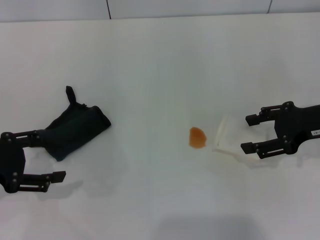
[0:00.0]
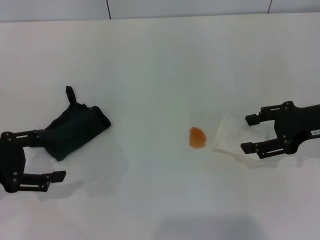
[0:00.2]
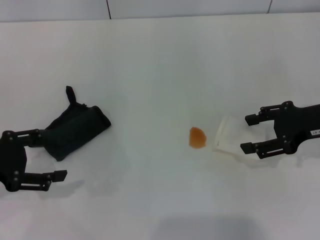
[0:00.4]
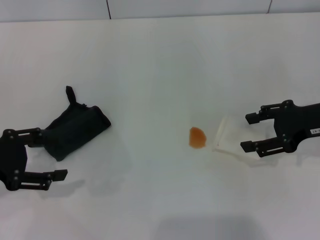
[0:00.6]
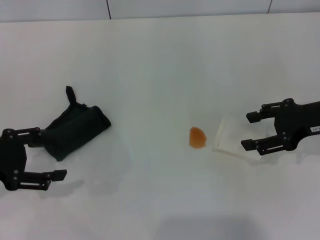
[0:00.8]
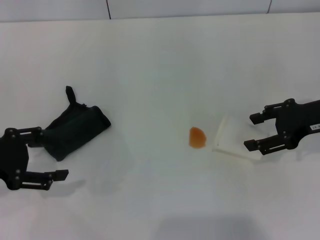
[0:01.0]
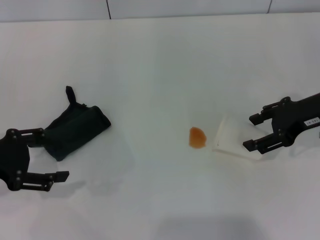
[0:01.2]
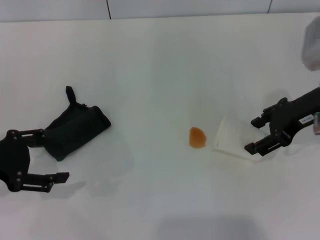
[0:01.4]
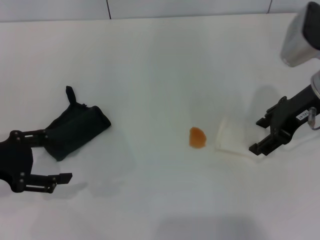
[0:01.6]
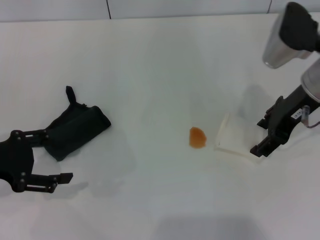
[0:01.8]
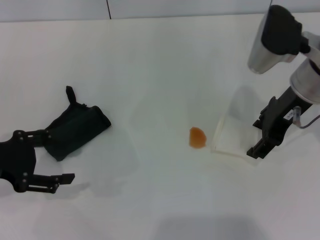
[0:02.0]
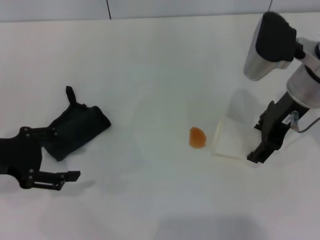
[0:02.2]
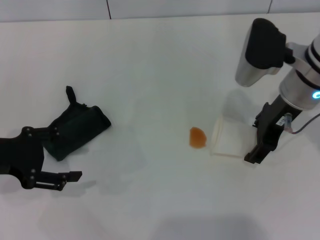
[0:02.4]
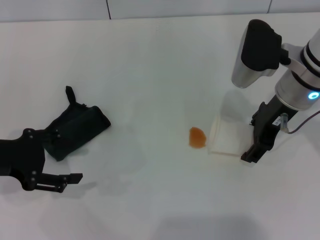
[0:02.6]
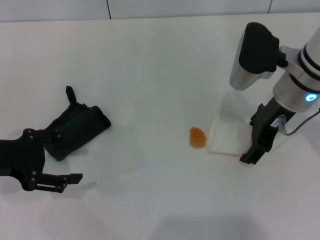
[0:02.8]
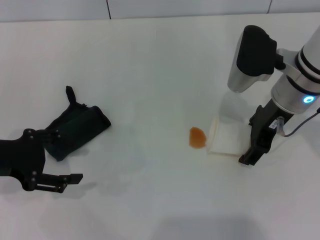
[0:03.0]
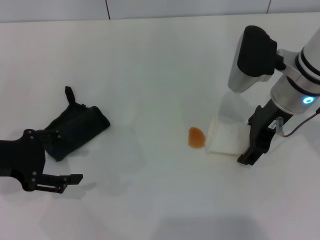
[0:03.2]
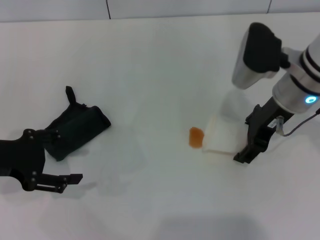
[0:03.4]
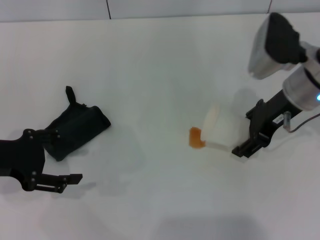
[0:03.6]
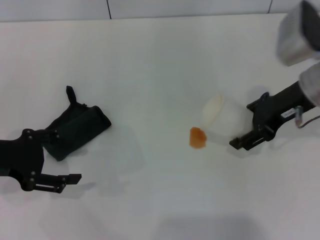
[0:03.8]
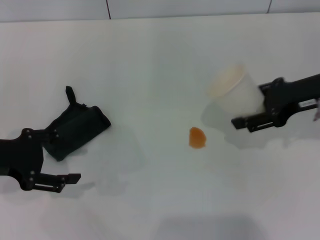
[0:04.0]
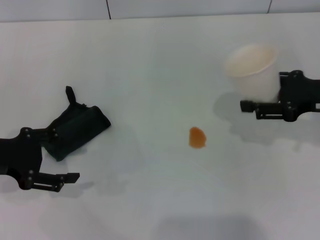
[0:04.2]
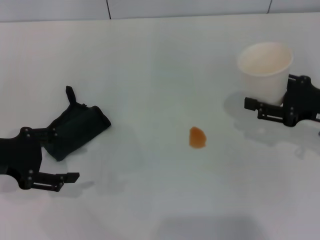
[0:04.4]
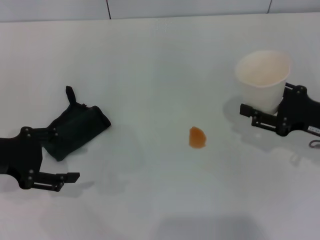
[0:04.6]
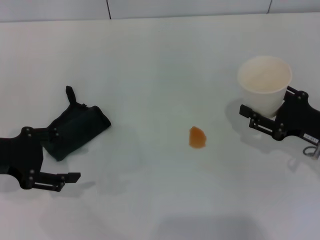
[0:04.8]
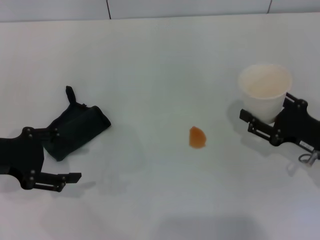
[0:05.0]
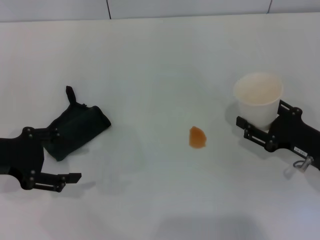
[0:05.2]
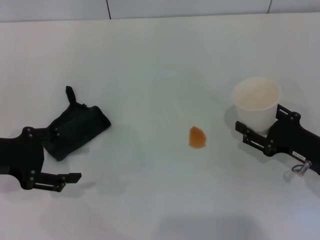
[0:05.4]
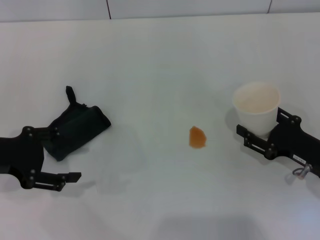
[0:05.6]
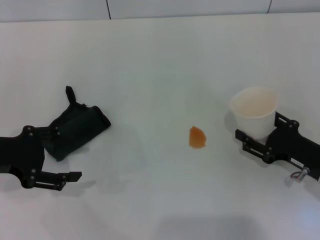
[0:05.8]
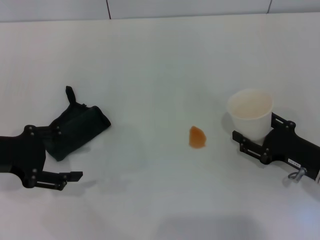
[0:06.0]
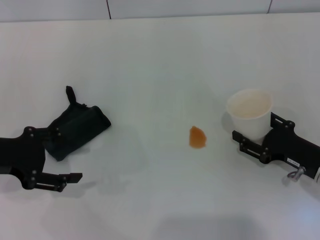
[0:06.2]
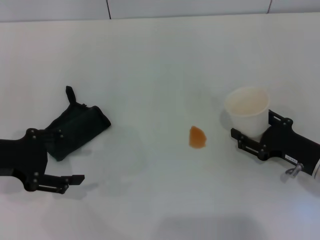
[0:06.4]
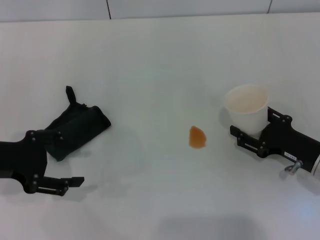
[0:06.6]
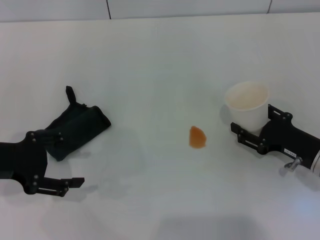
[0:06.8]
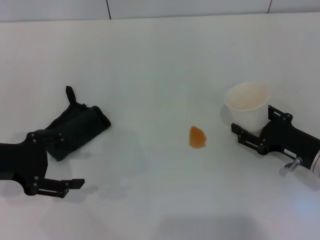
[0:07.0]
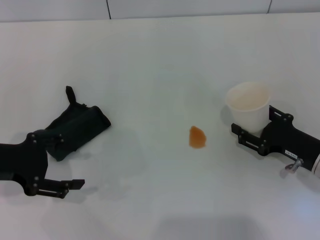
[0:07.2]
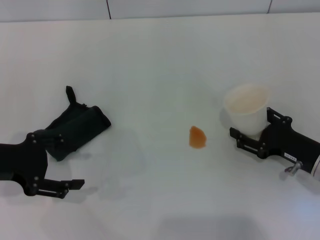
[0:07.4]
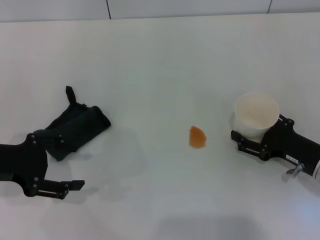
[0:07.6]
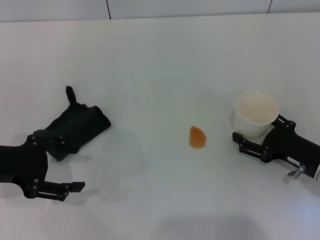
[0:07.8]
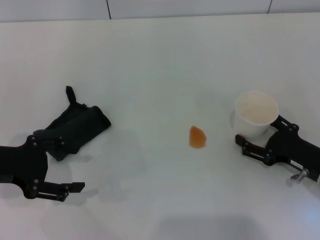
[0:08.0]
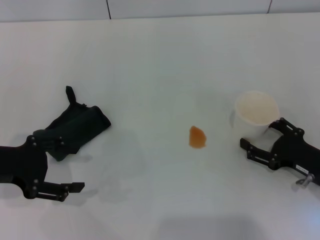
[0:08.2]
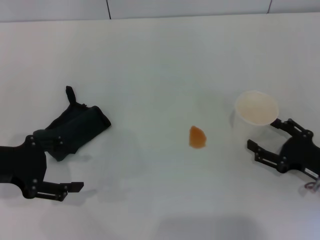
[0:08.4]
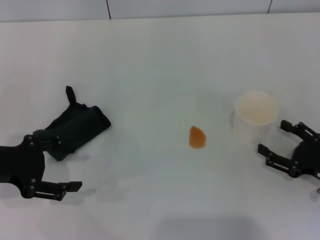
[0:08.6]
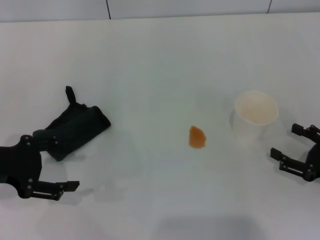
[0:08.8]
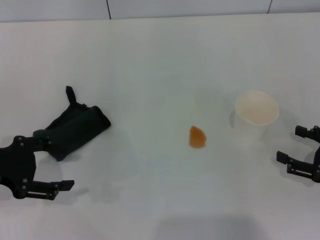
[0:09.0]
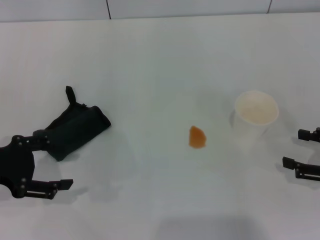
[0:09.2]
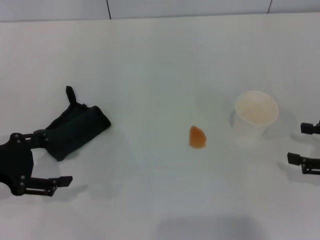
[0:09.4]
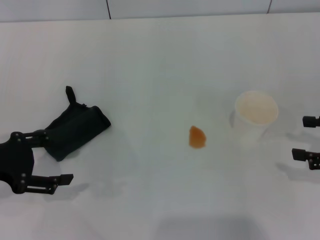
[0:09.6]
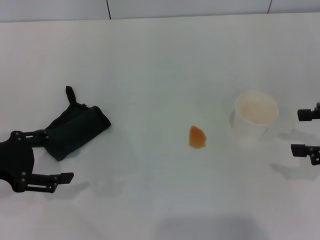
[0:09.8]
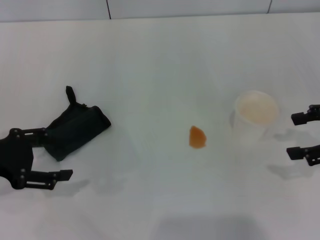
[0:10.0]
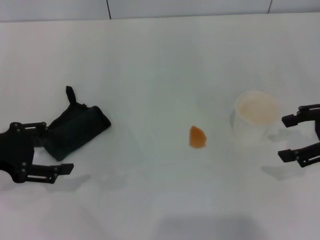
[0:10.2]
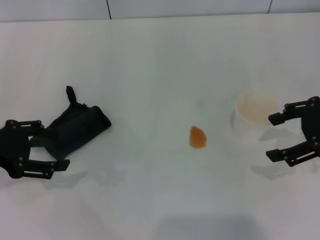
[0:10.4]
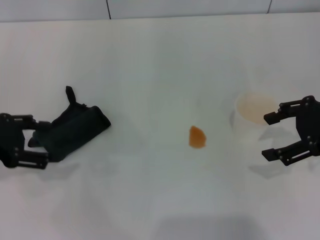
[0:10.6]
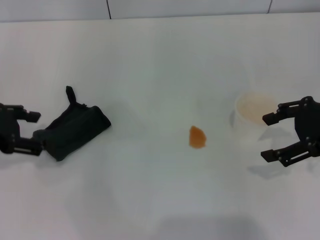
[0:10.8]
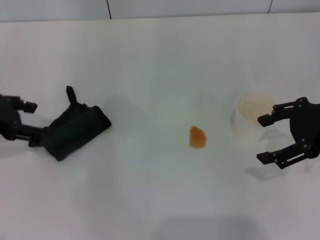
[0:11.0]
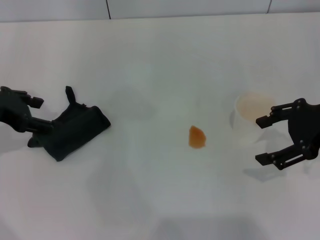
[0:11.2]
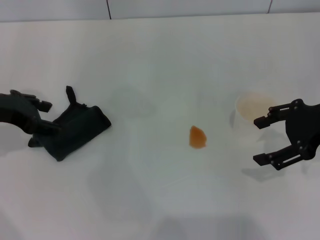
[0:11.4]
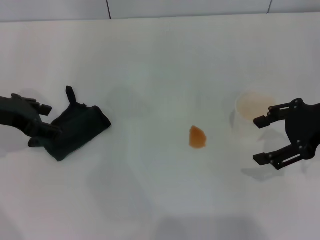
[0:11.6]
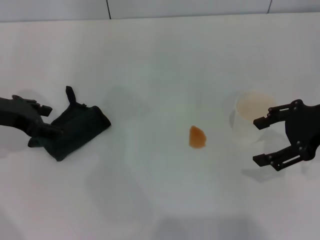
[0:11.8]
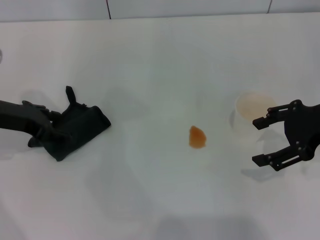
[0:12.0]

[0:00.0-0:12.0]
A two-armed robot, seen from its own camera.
Step, 0:00.0 to 0:03.0: Grasp the paper cup with the right gripper.
Step, 0:03.4 to 0:08.6: Stand the paper cup upright with the right gripper.
0:00.0 to 0:01.6: The right gripper is displaced to the left by about 5 cm.
0:01.6 to 0:03.0: The right gripper moves to the left, about 5 cm.
0:03.0 to 0:04.4: The right gripper travels to the right and backward by about 15 cm.
0:04.4 to 0:06.0: The right gripper goes some 10 cm downward and backward.
0:06.0 to 0:07.6: The grippers make only small movements.
0:07.6 to 0:09.0: The right gripper shifts roughly 5 cm to the right, and opens.
0:09.0 to 0:10.4: The right gripper moves upward and forward, approximately 15 cm.
0:10.4 to 0:12.0: The left gripper moves forward, some 5 cm.

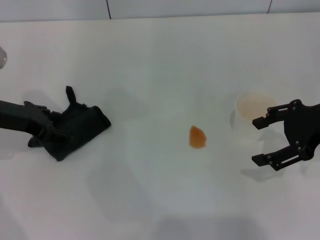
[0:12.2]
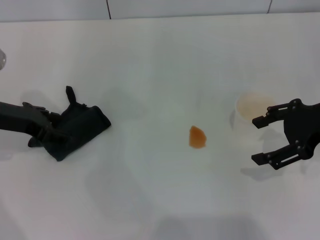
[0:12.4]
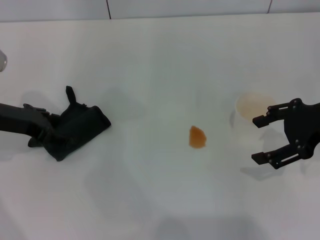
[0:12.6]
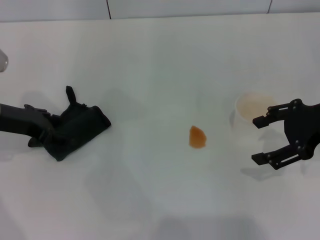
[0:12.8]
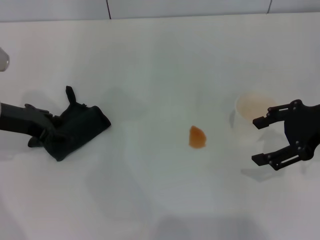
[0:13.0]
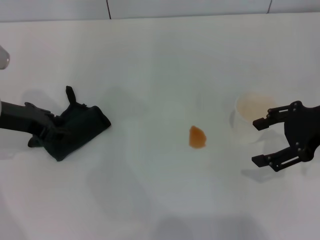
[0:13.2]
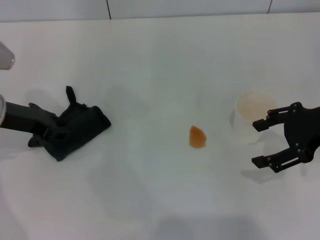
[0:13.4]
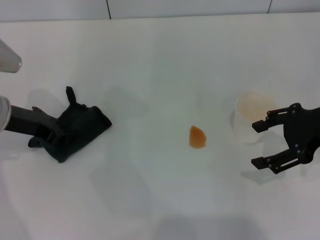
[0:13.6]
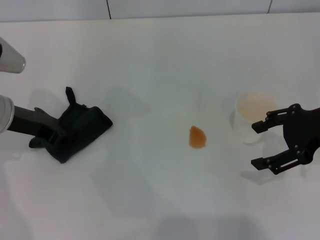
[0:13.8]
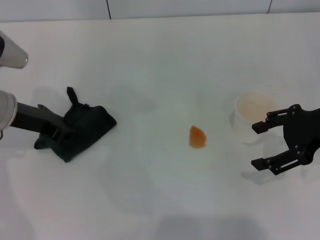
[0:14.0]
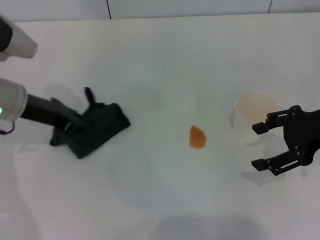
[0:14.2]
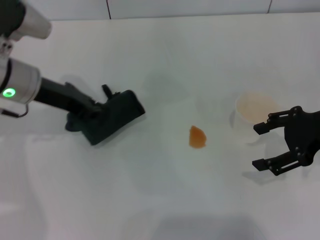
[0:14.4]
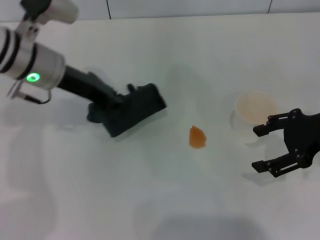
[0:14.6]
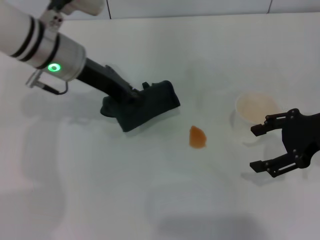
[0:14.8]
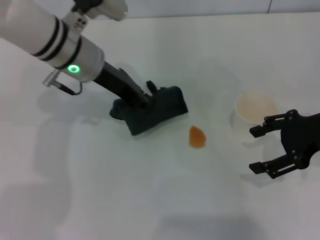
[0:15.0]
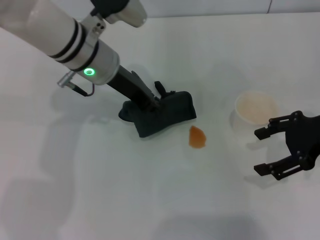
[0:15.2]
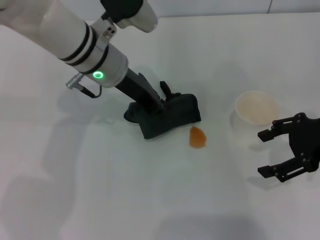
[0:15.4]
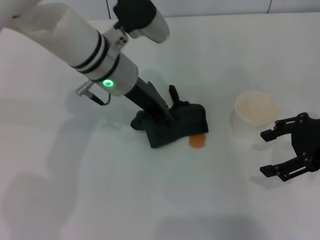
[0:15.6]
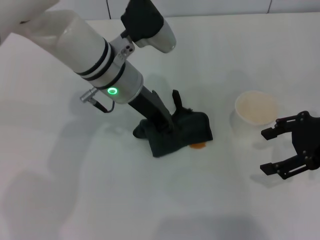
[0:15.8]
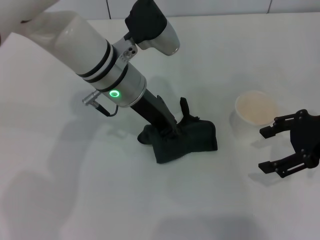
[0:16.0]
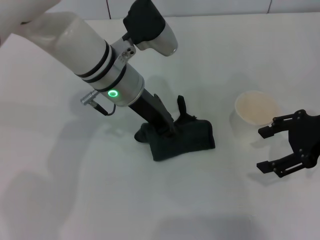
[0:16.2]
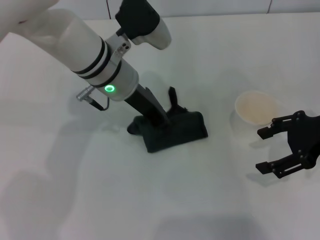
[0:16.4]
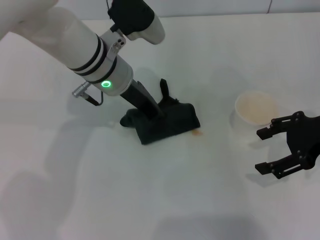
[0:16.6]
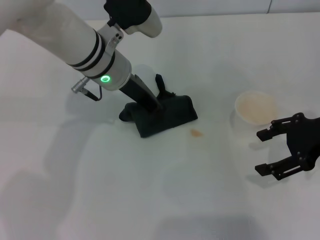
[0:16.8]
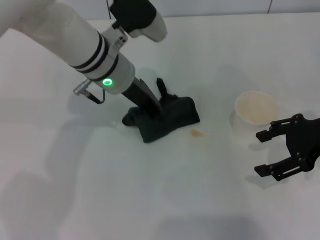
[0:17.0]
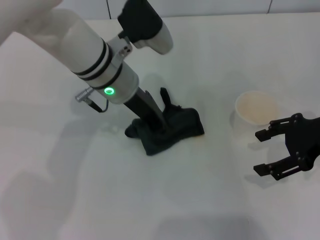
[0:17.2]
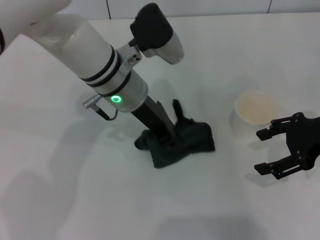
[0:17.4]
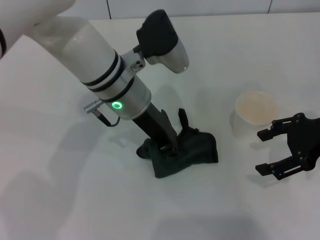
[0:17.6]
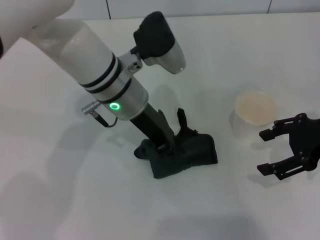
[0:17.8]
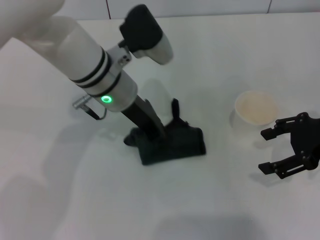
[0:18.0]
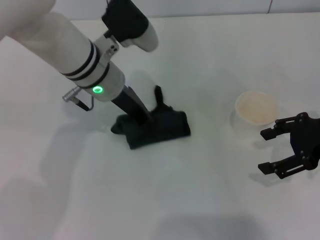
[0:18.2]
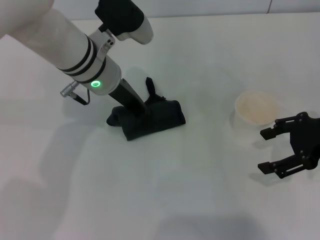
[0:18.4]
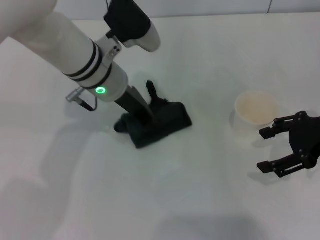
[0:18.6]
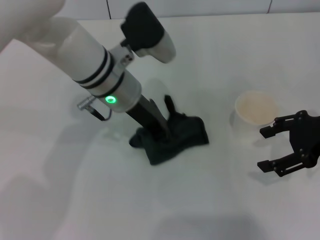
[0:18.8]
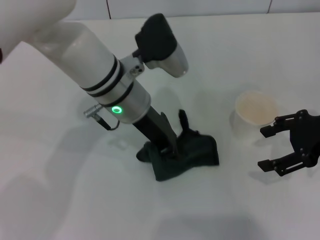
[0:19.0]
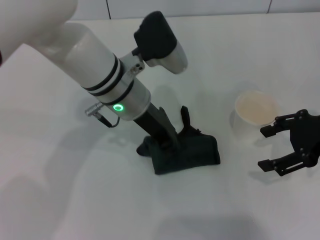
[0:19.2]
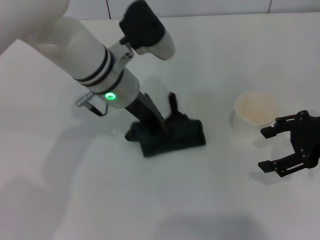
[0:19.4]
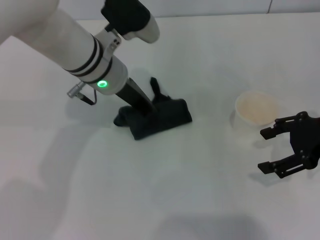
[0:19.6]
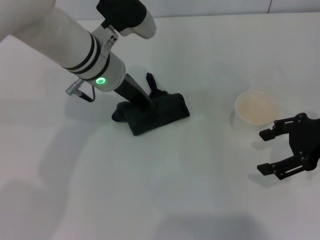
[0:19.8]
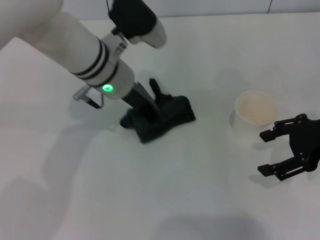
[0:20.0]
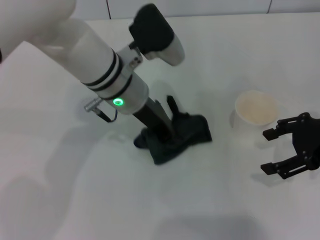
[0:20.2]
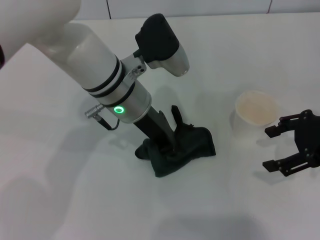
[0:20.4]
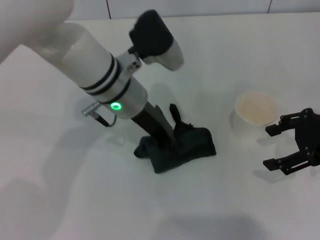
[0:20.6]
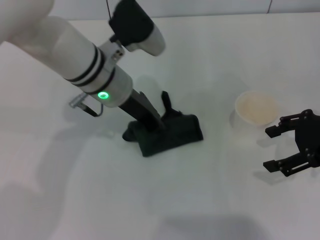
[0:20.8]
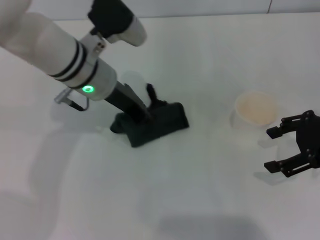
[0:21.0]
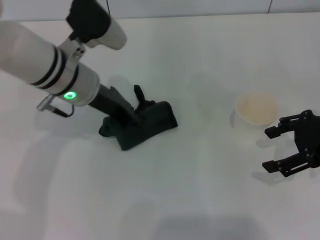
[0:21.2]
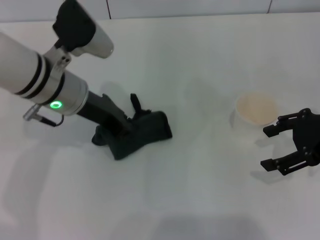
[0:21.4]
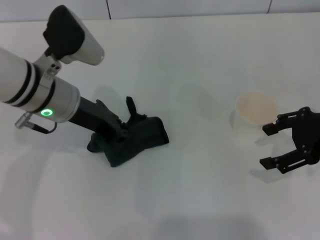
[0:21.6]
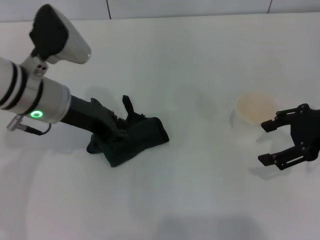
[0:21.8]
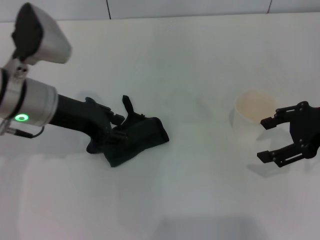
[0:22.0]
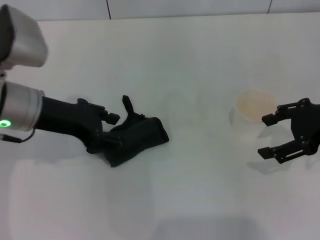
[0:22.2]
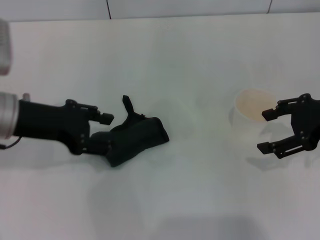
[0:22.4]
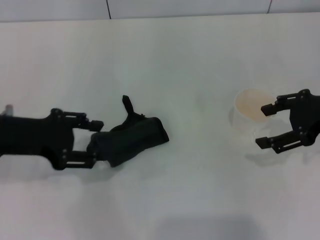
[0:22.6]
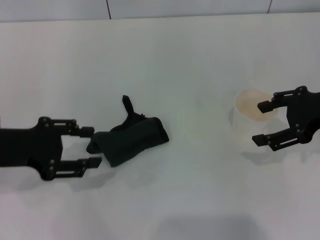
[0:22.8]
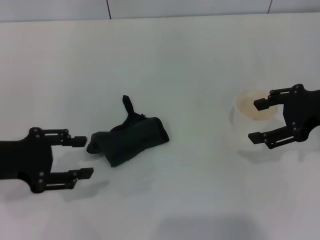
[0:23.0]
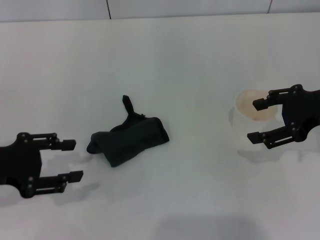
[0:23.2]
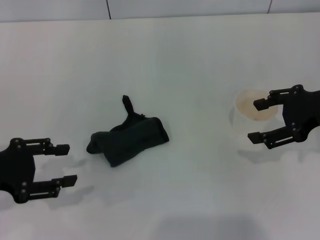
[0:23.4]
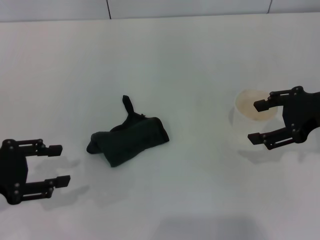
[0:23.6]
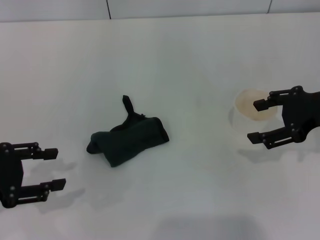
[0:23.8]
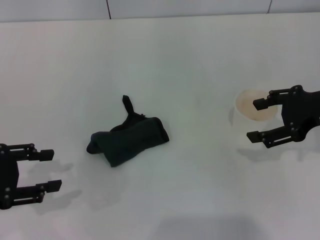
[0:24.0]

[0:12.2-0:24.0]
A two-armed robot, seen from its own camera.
Step, 0:14.0 to 0:21.4: Wipe the stains off the table with the left gripper.
Step, 0:21.6 to 0:22.6: Place the rag on the table with the left gripper.
0:12.2 to 0:13.6: The left gripper closes.
0:13.6 to 0:15.2: The left gripper shifts approximately 15 cm to the right.
0:15.2 to 0:16.6: There are only small adjustments of the grippers.
0:16.6 to 0:21.0: The grippers stay close to where they were, moving slightly.
0:21.0 to 0:22.6: The left gripper goes approximately 20 cm to the left and backward, and opens.
0:22.6 to 0:24.0: The left gripper heads to the left and backward, covering approximately 10 cm.
